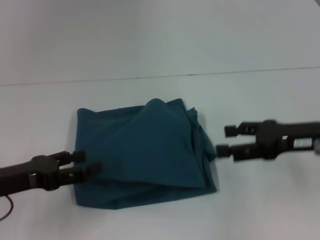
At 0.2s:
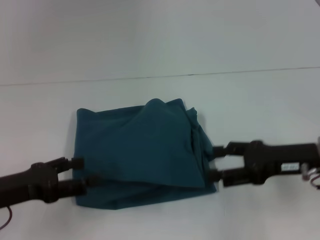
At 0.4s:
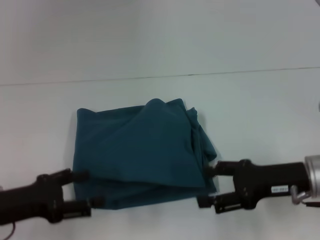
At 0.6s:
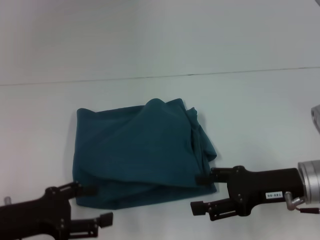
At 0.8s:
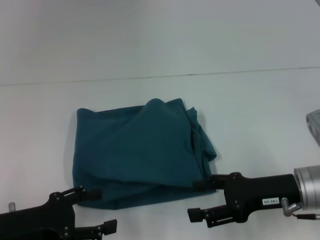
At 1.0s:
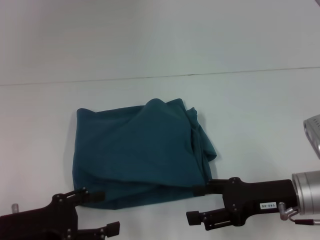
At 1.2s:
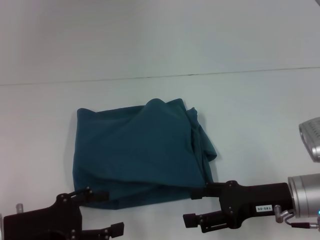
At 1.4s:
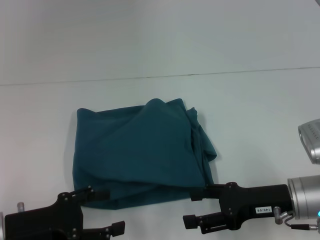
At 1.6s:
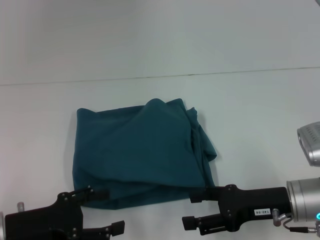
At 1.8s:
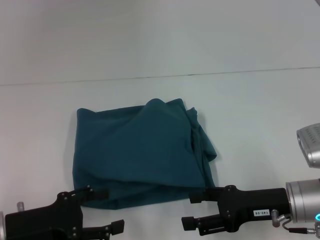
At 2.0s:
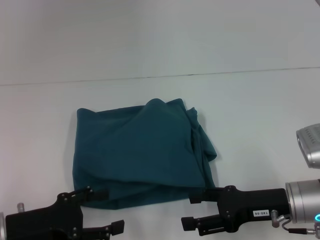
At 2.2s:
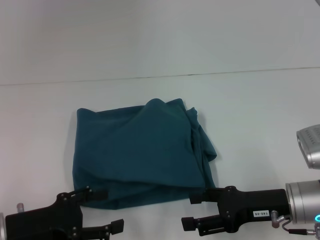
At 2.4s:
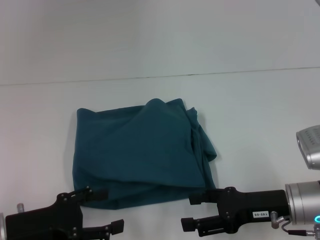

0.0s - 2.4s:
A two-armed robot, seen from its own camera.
0.0s - 1.2s: The left gripper changes place by about 5 cm. Meanwhile the right gripper goes about 10 cm downward.
1.2s - 2.4s: The two grippers keep their place.

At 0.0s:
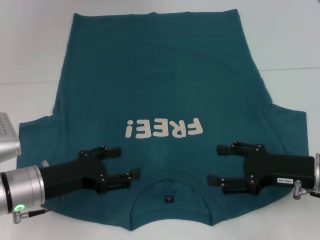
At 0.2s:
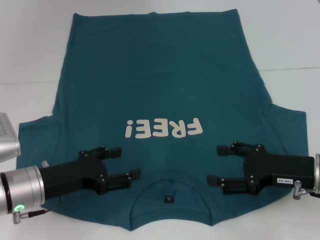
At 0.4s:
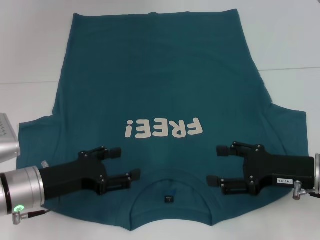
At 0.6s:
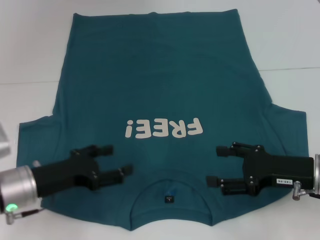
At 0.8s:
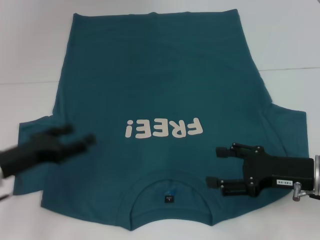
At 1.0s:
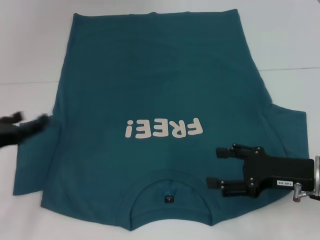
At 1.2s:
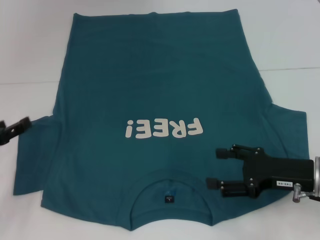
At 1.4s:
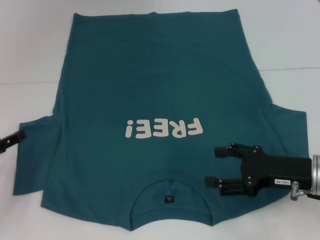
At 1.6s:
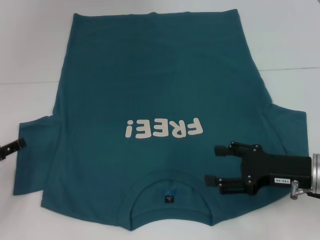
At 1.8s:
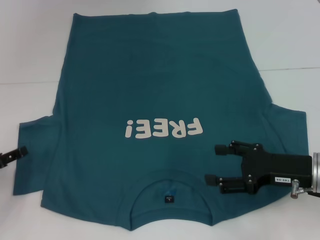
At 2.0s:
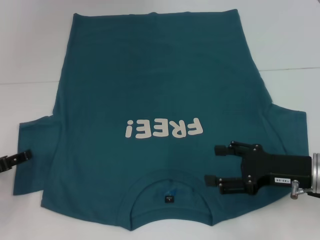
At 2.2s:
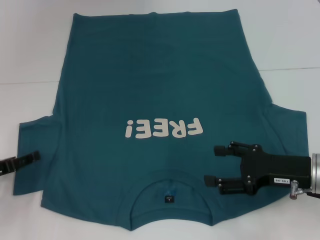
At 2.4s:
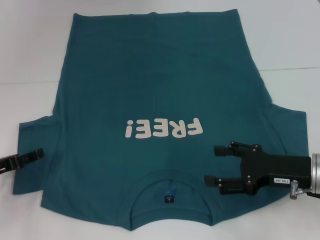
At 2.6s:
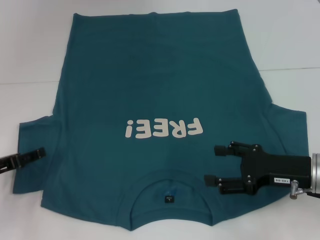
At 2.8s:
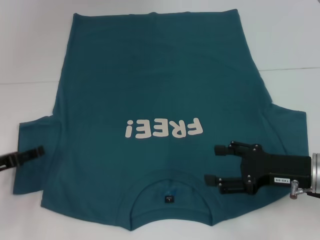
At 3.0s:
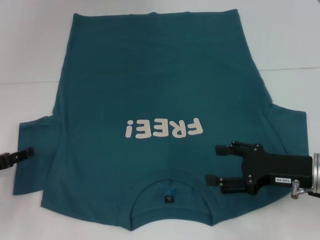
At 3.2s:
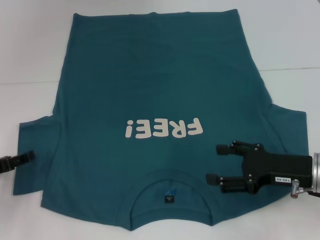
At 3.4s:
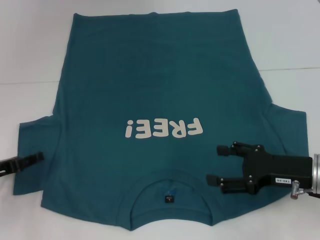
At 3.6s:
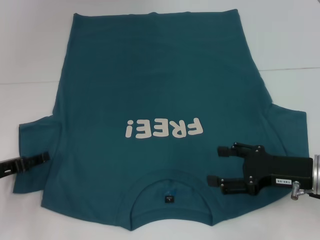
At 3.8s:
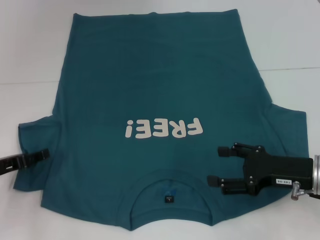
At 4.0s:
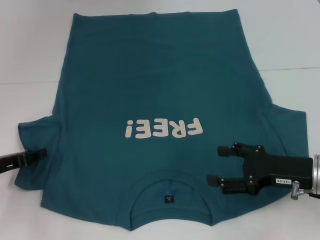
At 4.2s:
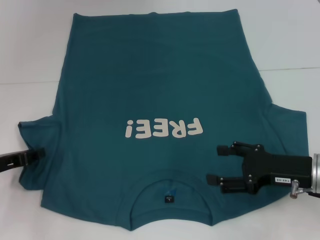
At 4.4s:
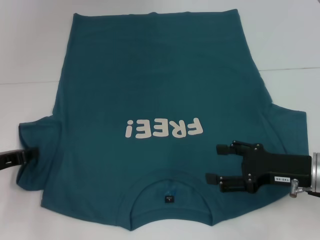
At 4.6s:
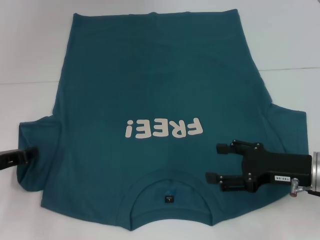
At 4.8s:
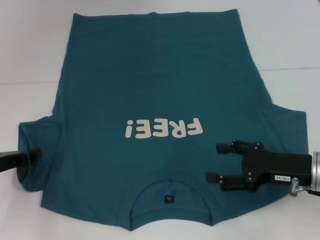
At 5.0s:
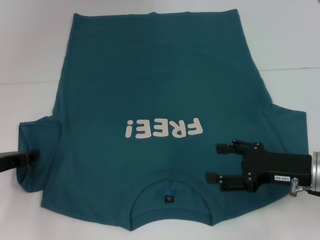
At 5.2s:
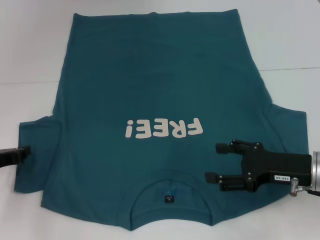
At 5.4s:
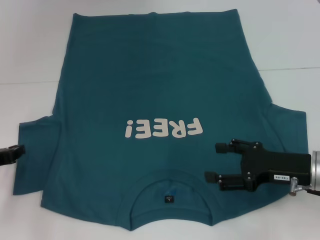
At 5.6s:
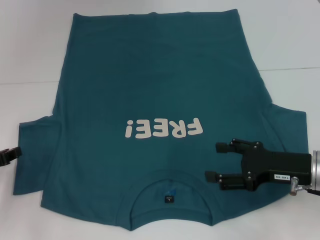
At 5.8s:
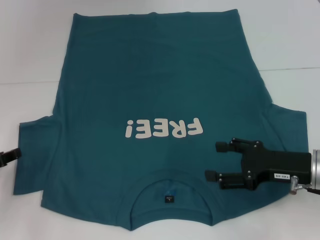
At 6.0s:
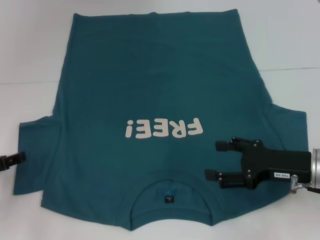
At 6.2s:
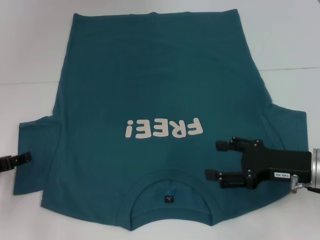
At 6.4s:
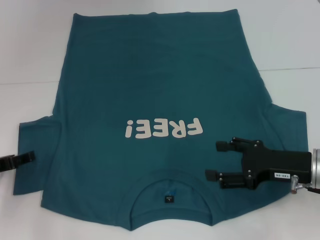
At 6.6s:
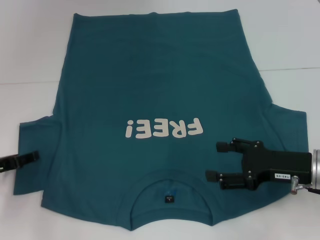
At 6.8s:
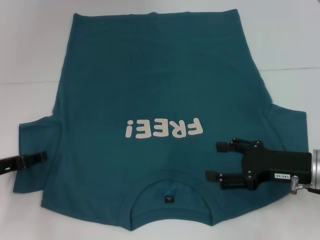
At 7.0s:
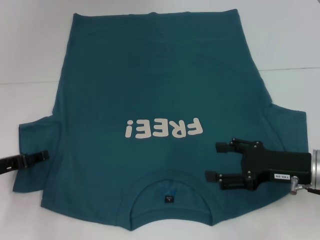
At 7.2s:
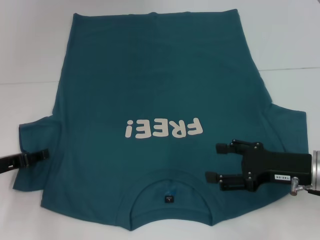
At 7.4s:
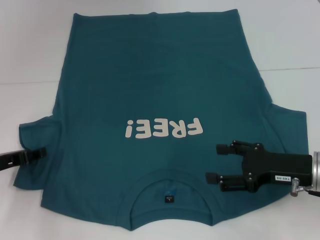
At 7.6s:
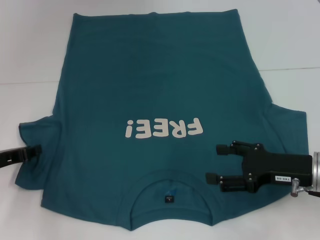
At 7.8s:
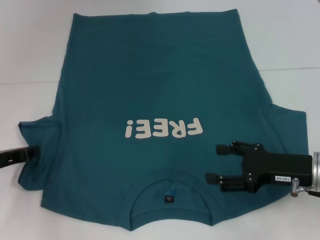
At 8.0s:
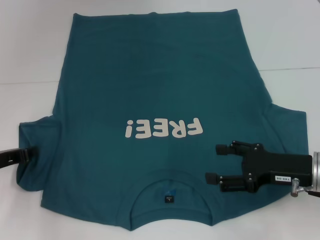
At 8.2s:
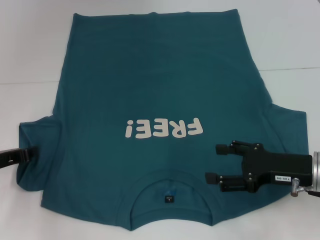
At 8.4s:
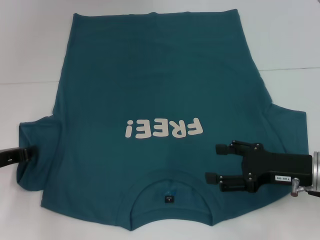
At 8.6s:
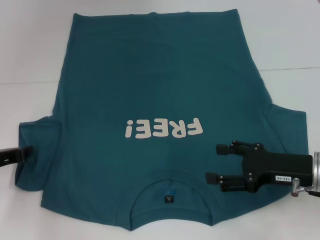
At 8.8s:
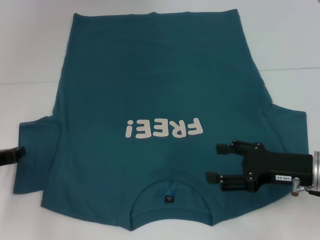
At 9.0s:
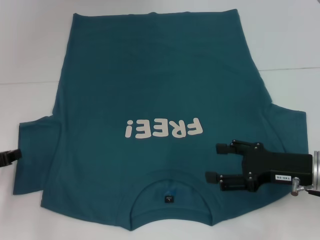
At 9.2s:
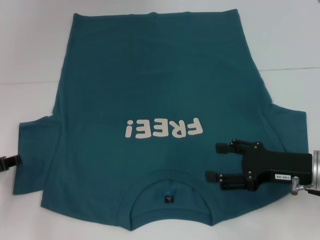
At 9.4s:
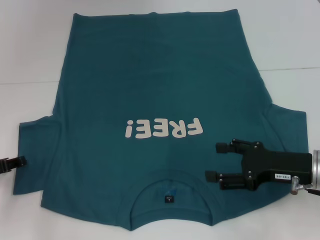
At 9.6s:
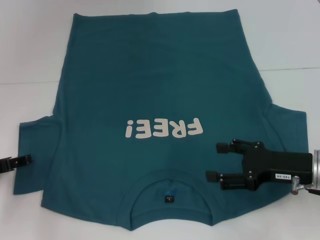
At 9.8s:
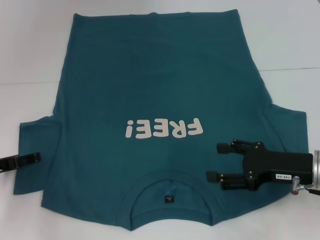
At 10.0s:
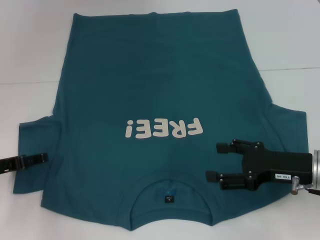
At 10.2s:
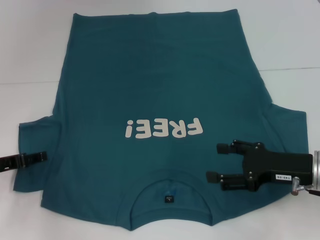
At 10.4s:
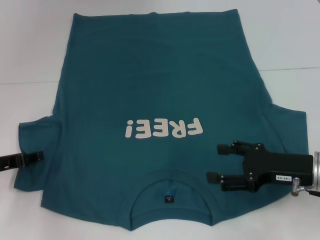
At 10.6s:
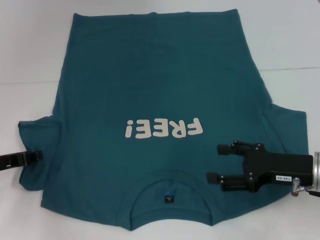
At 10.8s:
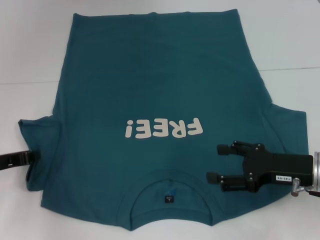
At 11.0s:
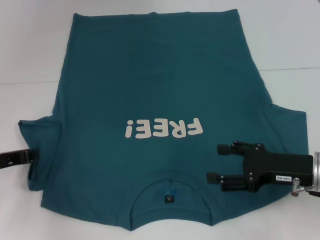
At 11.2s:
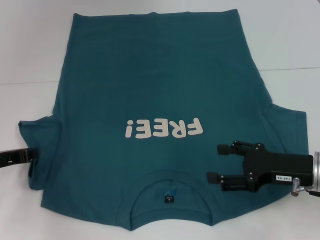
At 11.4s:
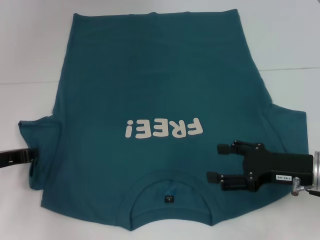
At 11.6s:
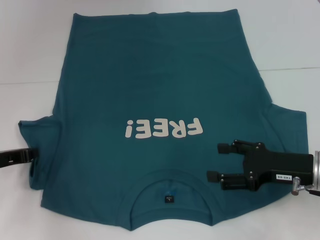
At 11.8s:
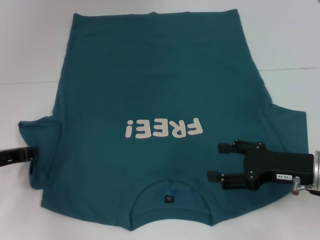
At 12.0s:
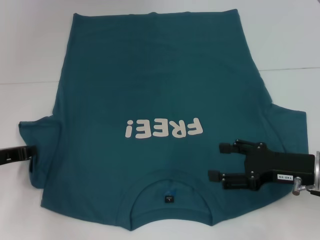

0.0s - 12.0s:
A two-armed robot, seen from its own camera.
0.0s - 1.6s: The left gripper travels to the left by some 15 cm.
1.6s - 3.0s: The grippers make only small movements.
3.0s - 4.4s: The left gripper closes.
4.4s - 6.0s: The left gripper closes and opens again.
6.0s - 7.6s: The grippers make only small movements.
7.6s - 9.0s: The left gripper closes its fingers.
9.0s - 10.4s: The left gripper opens up.
10.4s - 12.0s: The left gripper closes up.

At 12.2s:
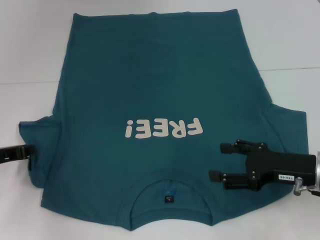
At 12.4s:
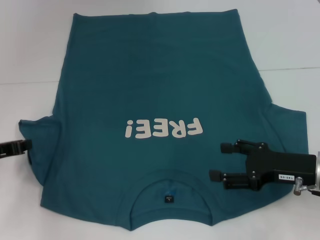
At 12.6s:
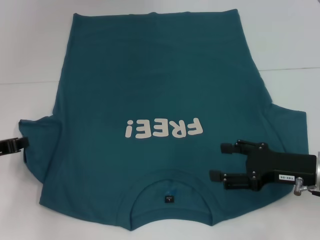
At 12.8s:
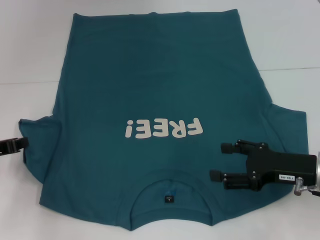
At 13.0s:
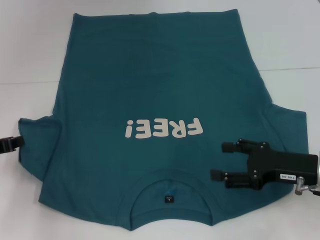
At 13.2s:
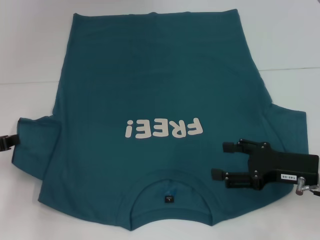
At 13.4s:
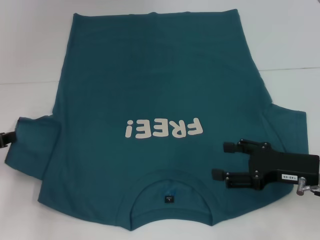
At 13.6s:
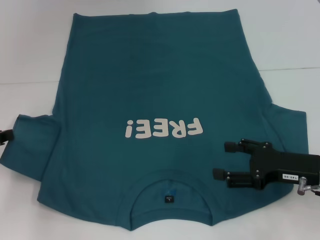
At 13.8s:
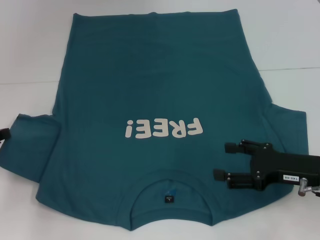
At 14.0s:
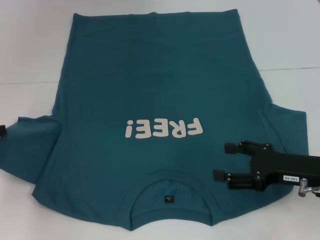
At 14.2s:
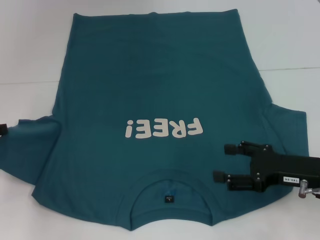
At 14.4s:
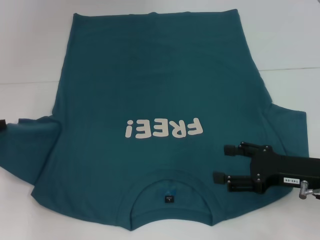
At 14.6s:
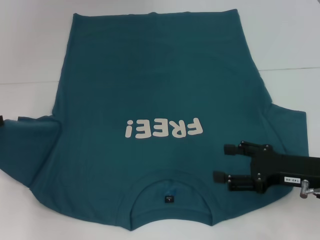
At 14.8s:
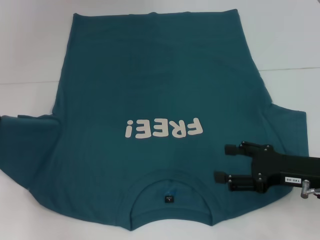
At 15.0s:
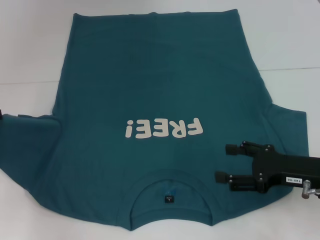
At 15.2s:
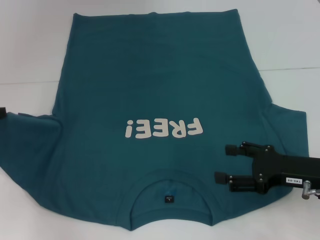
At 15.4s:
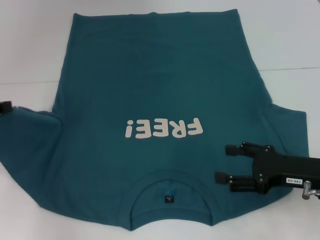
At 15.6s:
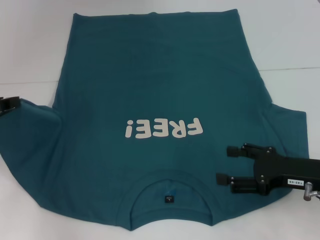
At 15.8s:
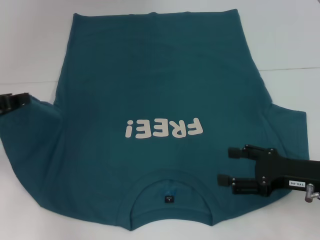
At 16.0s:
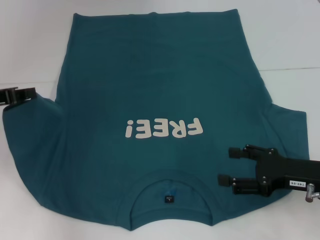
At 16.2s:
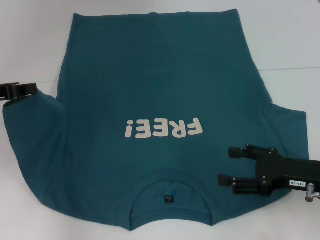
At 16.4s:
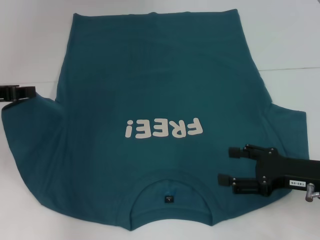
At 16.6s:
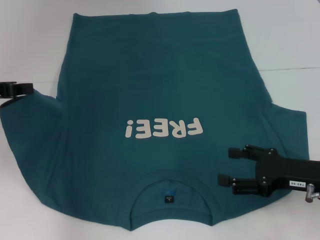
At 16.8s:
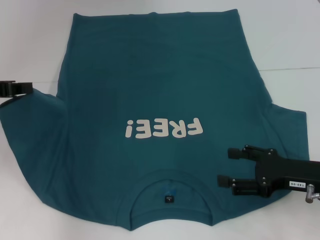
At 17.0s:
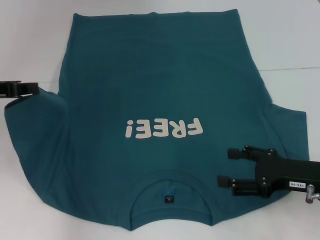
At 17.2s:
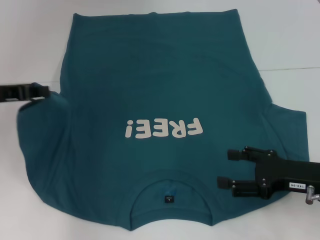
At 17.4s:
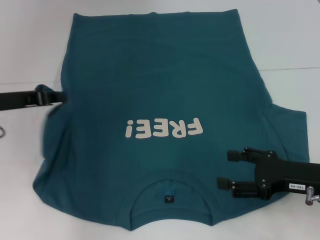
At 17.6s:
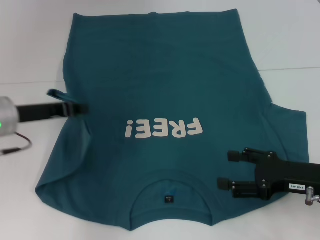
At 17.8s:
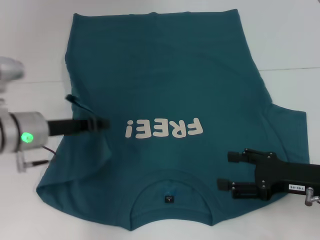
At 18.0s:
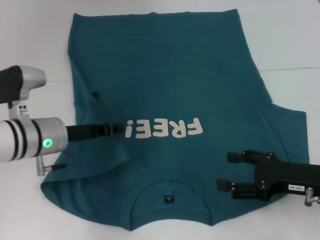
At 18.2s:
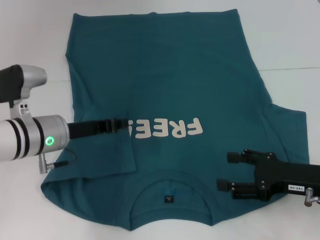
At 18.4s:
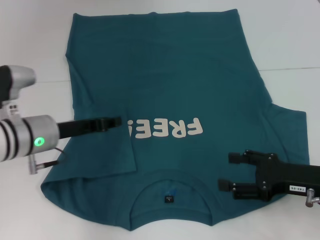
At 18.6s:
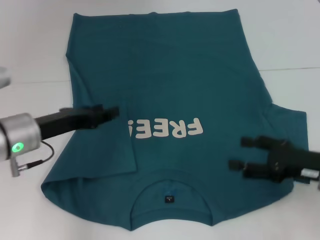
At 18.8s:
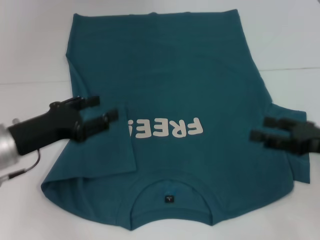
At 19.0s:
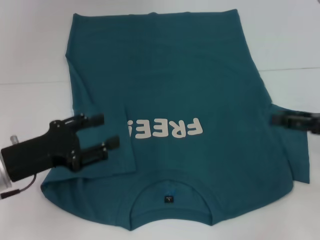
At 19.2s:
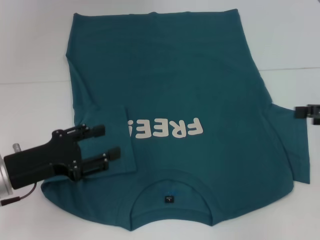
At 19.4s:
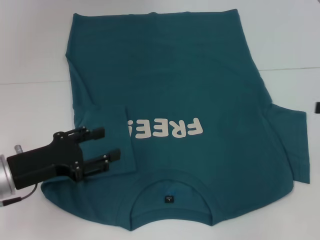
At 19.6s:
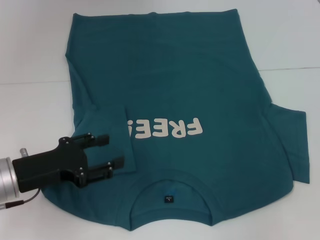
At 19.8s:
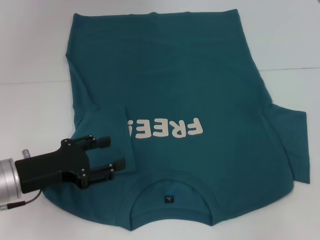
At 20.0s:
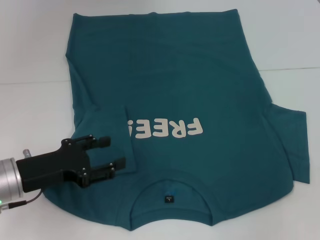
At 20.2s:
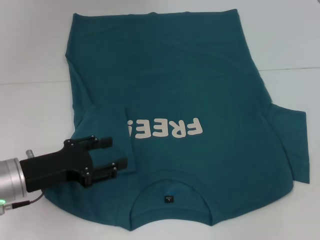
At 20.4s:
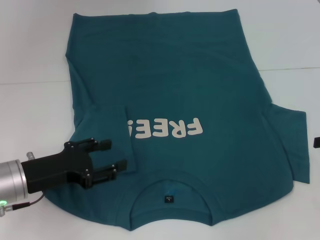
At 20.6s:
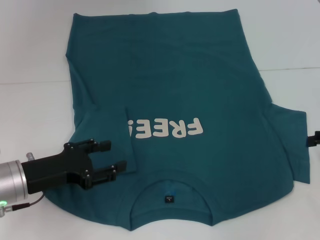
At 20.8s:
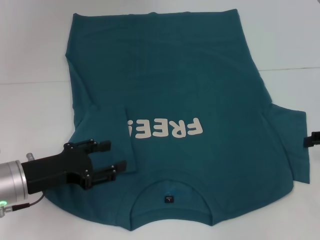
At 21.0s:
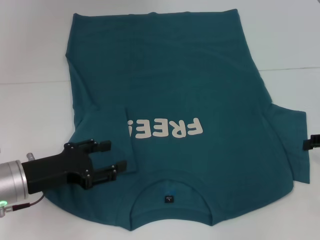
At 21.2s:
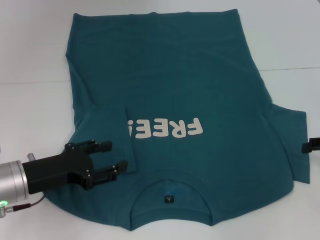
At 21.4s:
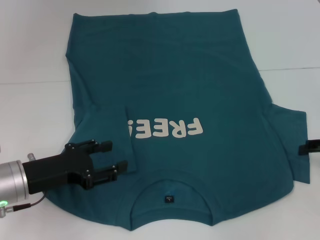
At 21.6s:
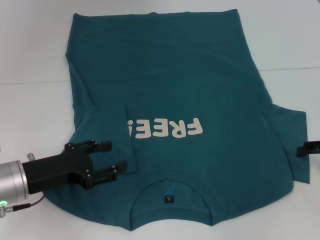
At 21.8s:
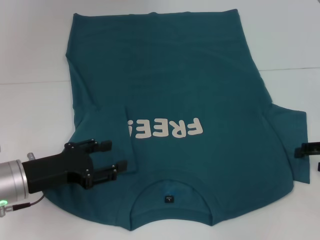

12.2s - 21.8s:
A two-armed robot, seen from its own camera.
Step, 12.2s - 18.2s: Fold the bottom left sleeve with your left hand.
12.2s - 13.8s: The grippers stay close to where they were, moving slightly.
13.8s - 15.4s: The grippers move only a little.
15.4s - 17.0s: The left gripper moves some 5 cm.
17.0s - 18.6s: The left gripper shifts approximately 10 cm to the right and downward.
18.6s - 20.2s: The left gripper heads backward, covering roughly 5 cm, and opens its fingers. Meanwhile the right gripper heads to the right and upward, covering approximately 15 cm.
20.2s - 21.8s: The right gripper moves approximately 5 cm.
